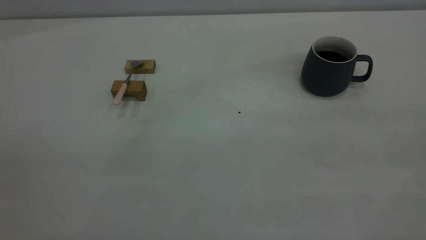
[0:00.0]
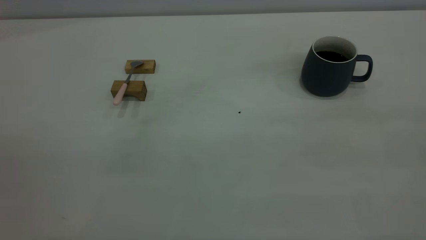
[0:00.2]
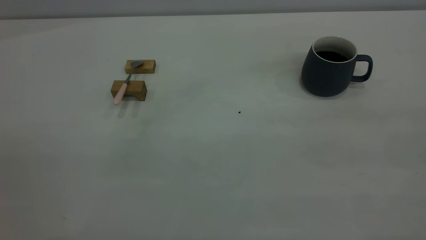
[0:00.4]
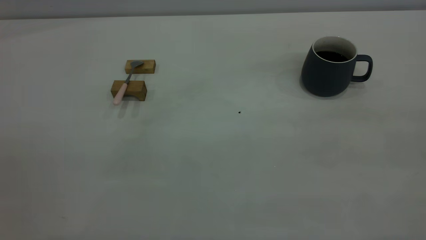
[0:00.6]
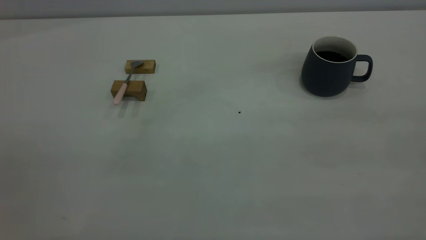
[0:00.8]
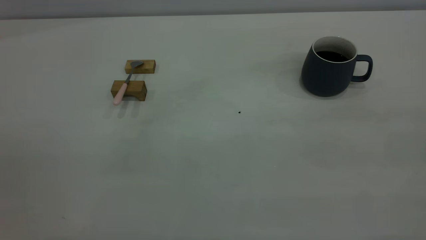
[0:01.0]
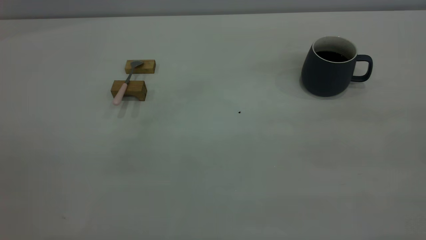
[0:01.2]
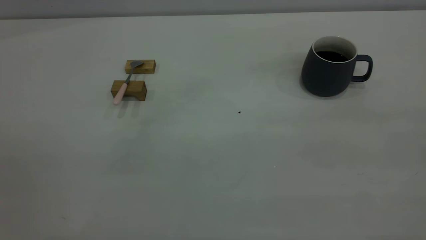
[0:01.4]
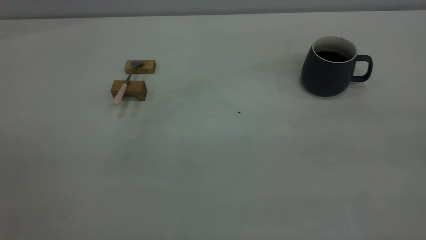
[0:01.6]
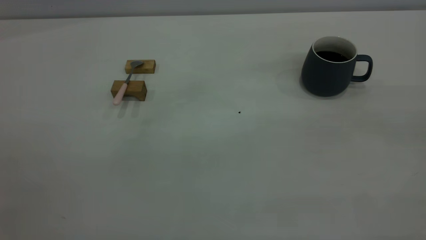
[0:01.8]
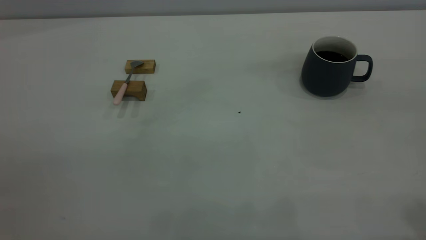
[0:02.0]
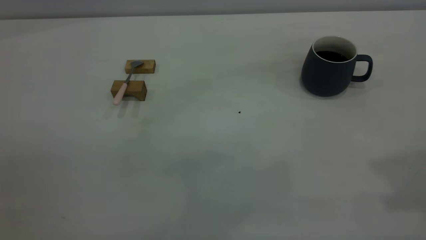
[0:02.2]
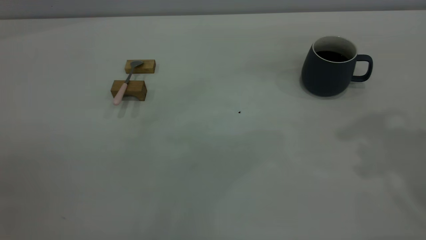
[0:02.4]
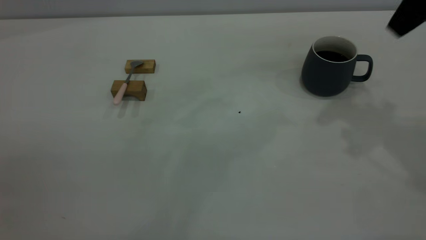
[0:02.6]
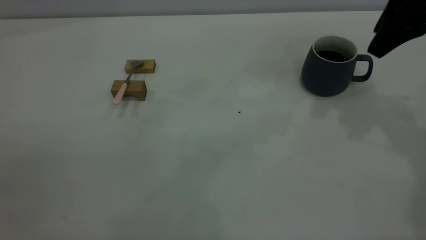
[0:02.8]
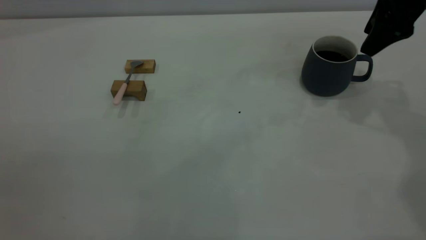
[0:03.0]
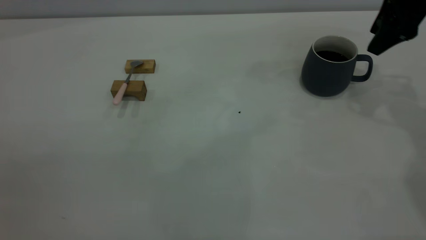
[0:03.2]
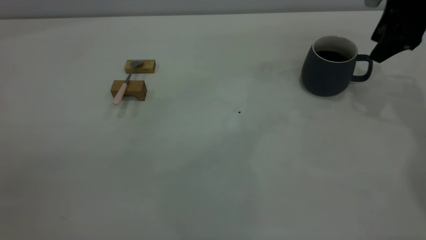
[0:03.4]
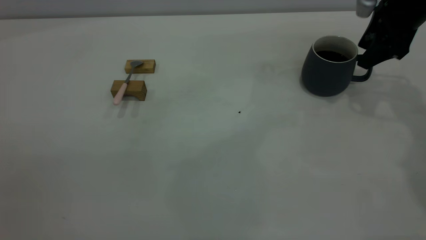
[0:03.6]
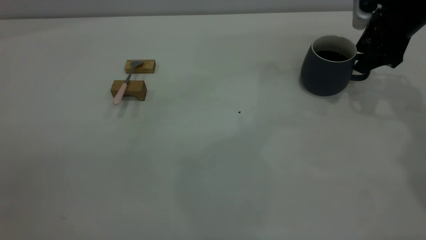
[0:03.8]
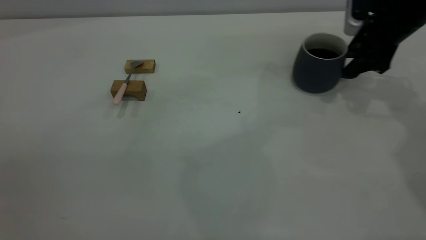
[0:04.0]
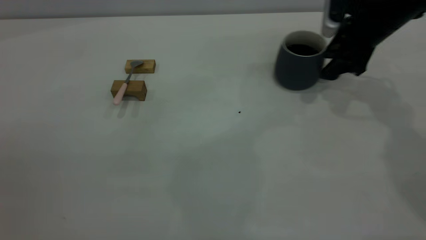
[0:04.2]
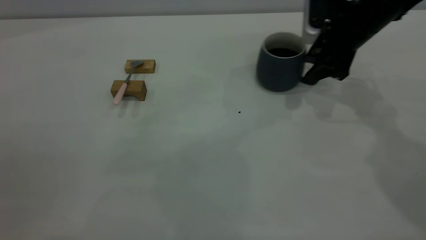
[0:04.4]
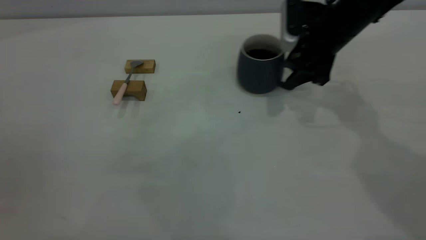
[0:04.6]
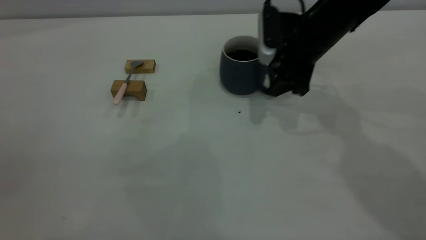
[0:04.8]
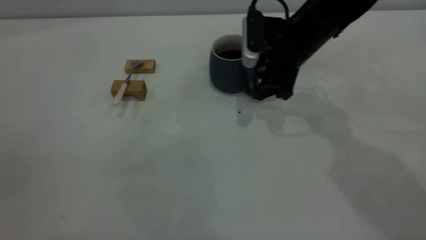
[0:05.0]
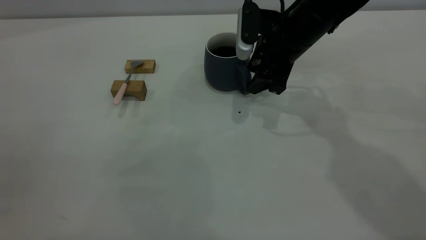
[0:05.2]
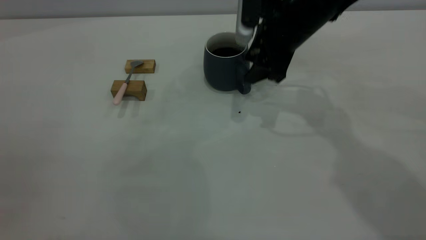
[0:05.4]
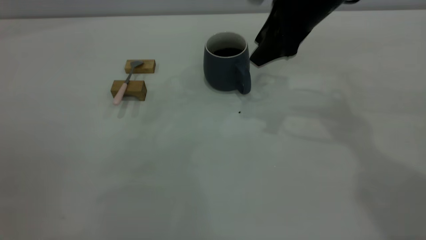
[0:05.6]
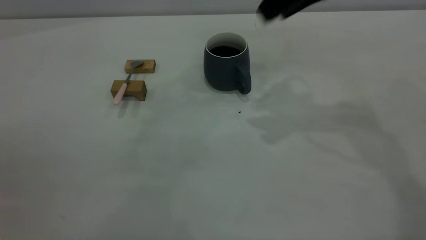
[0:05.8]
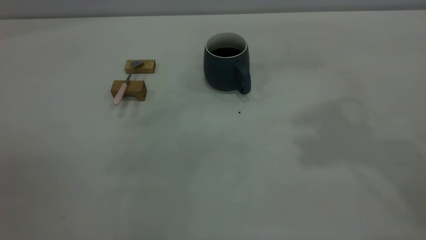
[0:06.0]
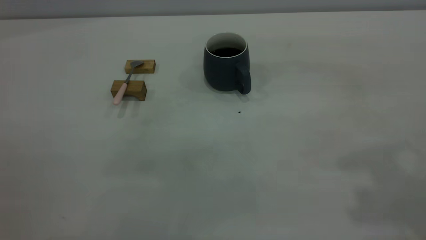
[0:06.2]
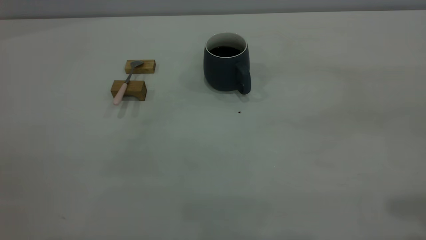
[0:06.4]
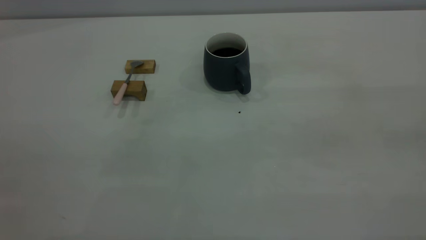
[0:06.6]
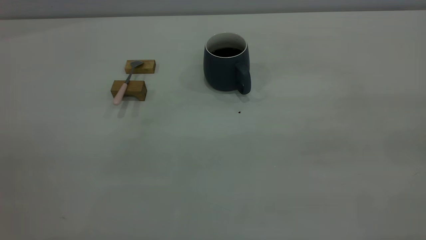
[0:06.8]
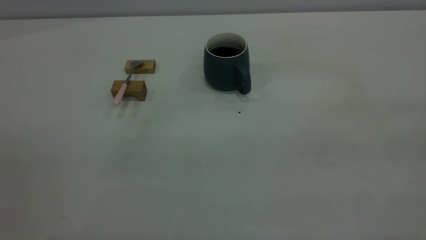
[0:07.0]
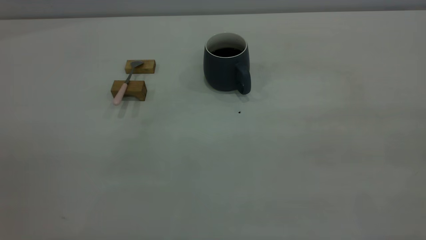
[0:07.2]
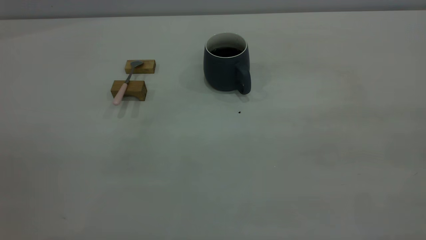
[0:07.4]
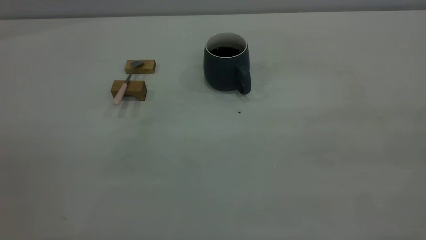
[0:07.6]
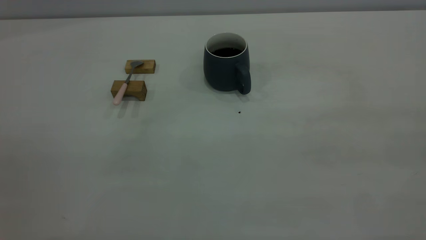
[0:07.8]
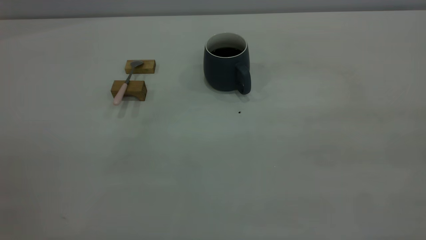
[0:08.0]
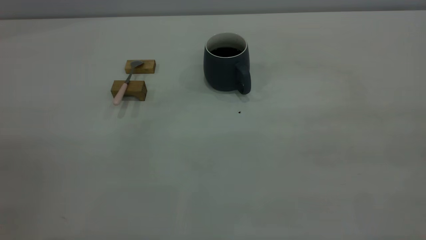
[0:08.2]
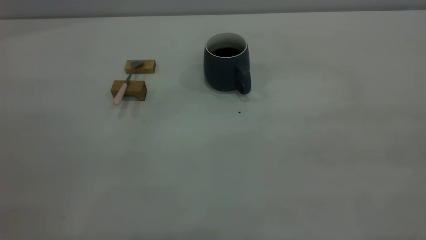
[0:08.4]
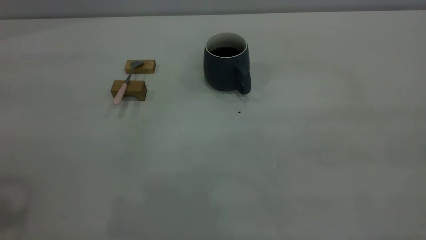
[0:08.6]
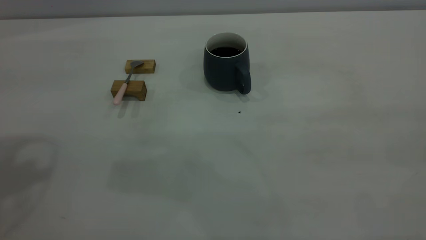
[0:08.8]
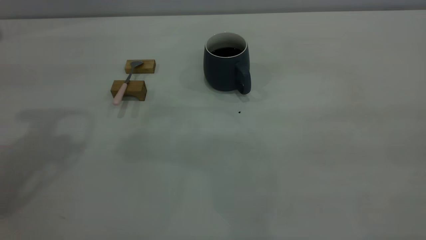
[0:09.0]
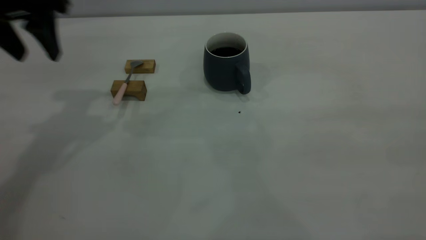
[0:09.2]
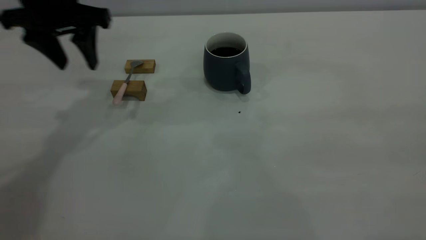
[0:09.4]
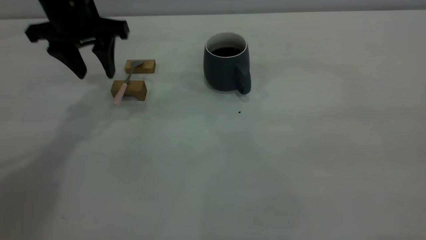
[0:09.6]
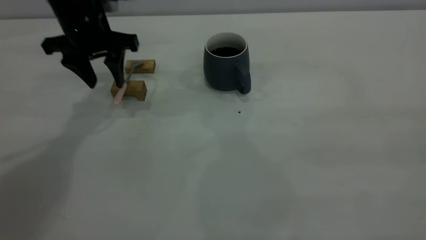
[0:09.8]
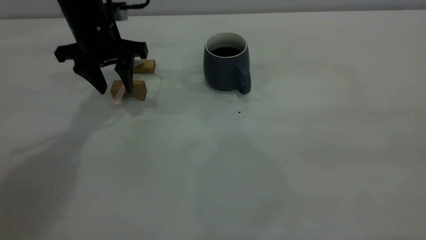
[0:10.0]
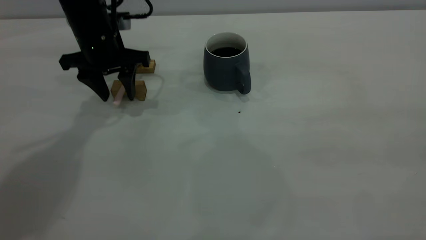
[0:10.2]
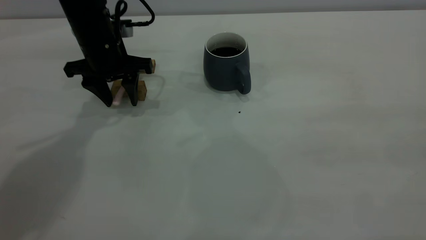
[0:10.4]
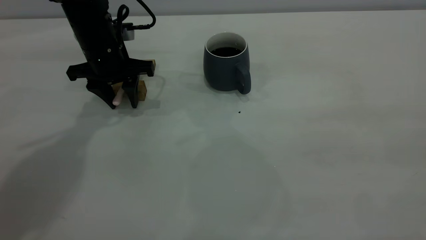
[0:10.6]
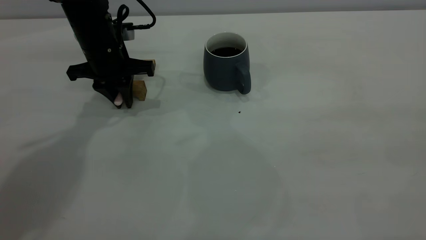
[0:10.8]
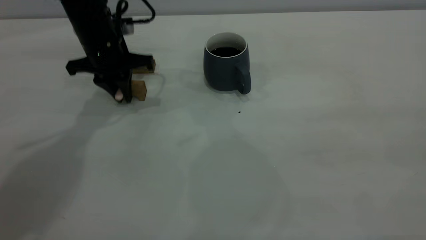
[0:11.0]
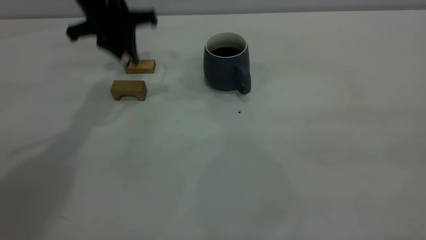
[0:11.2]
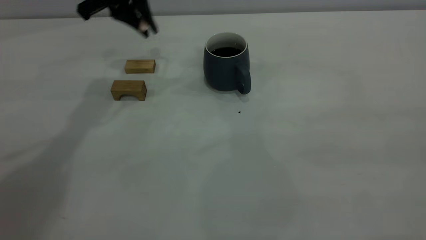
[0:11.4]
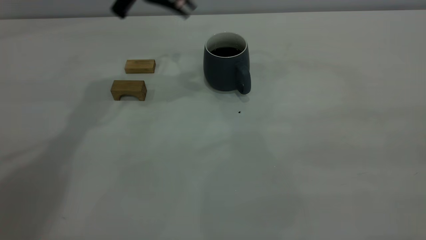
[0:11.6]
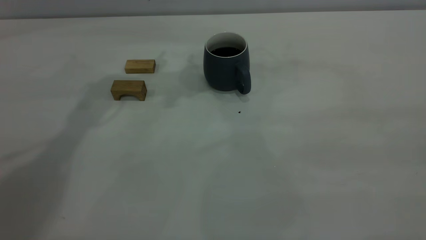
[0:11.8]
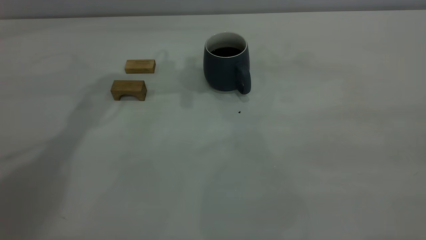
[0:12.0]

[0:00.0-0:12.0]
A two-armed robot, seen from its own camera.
Step, 0:00.0 to 0:05.6: Move the cup with coffee to the center of view.
Step, 0:05.8 to 0:11.0: Pick up the spoon.
0:00.0 to 0:01.6: Both grippers stay about where they are.
0:01.6 to 0:03.0: The right gripper is displaced forward by about 40 cm.
0:03.0 to 0:04.4: The right gripper moves downward and to the left, about 10 cm.
0:04.4 to 0:06.0: The right gripper travels upward and backward by roughly 30 cm.
0:09.0 to 0:10.4: The left gripper goes approximately 25 cm downward, forward and to the right.
0:10.4 to 0:12.0: The left gripper heads upward and to the right, covering approximately 20 cm, and closes up.

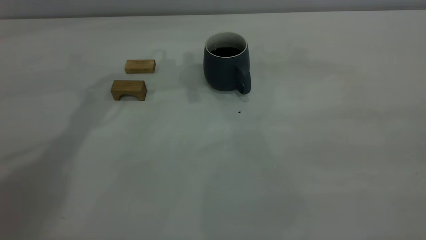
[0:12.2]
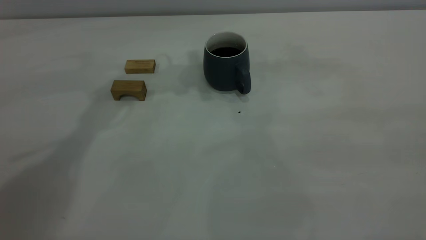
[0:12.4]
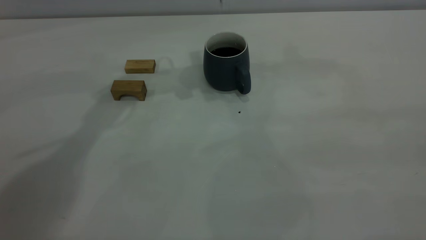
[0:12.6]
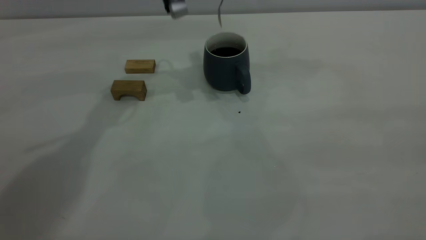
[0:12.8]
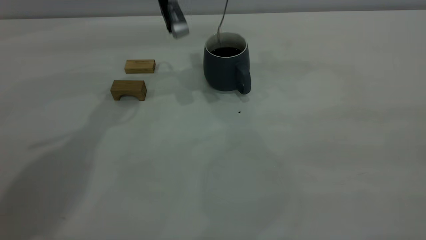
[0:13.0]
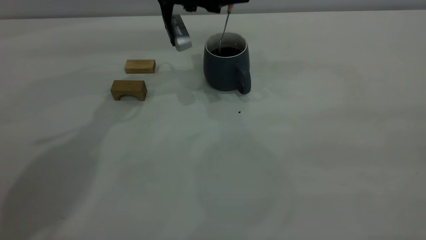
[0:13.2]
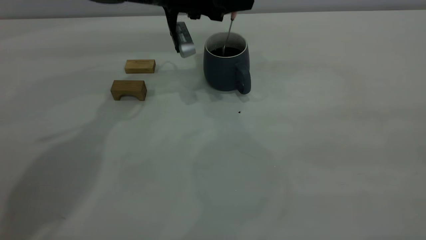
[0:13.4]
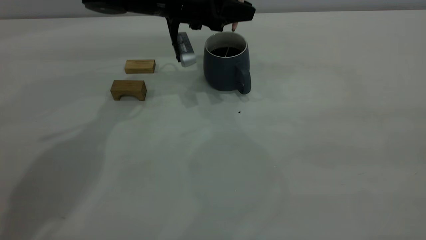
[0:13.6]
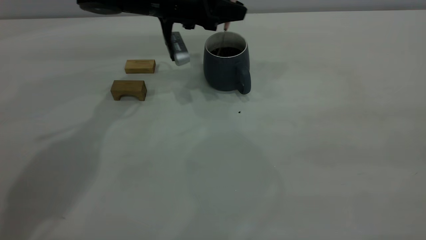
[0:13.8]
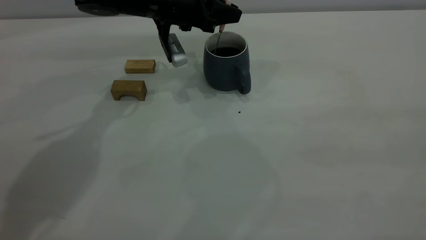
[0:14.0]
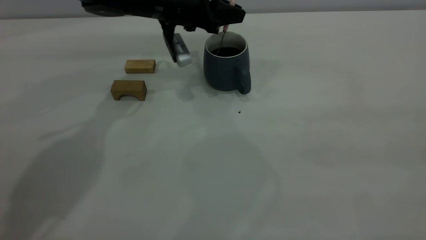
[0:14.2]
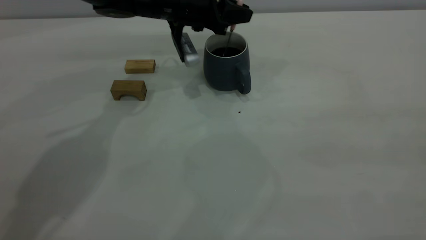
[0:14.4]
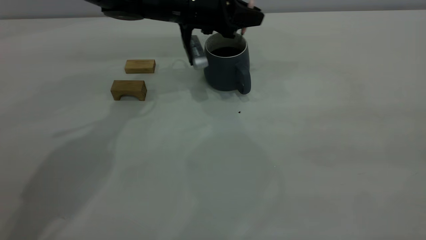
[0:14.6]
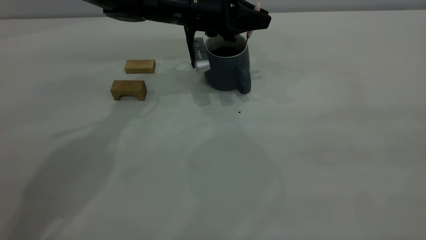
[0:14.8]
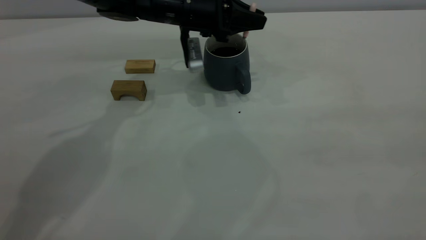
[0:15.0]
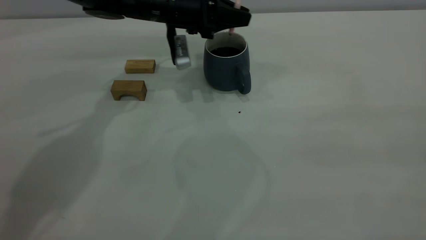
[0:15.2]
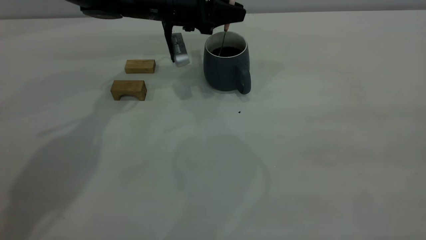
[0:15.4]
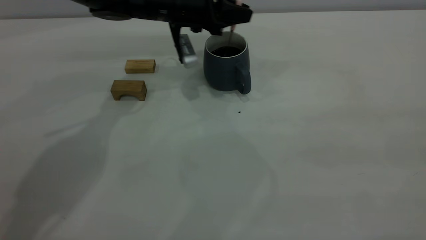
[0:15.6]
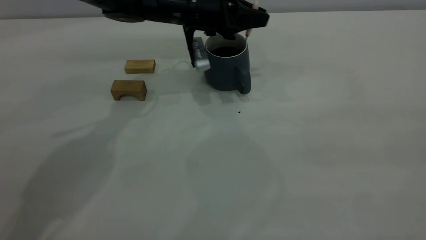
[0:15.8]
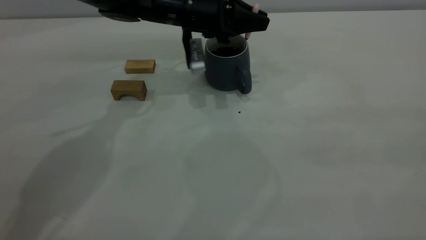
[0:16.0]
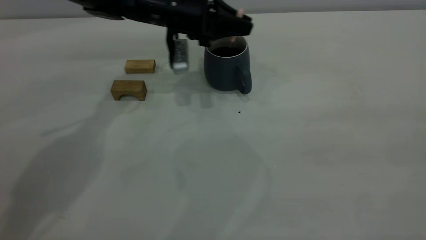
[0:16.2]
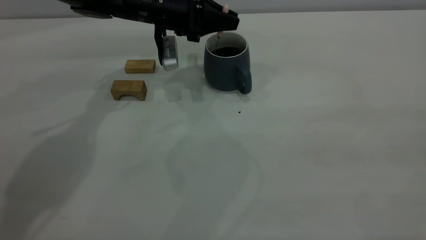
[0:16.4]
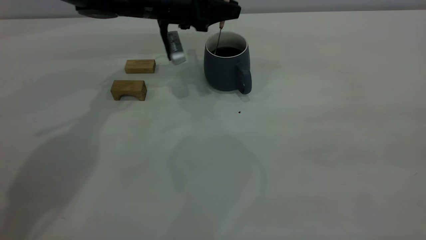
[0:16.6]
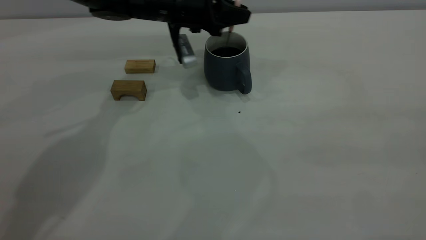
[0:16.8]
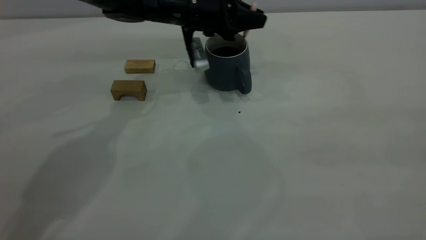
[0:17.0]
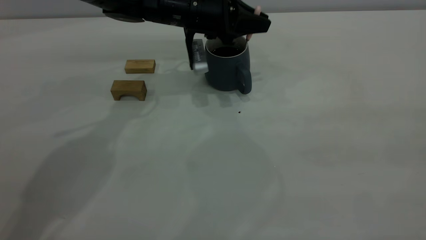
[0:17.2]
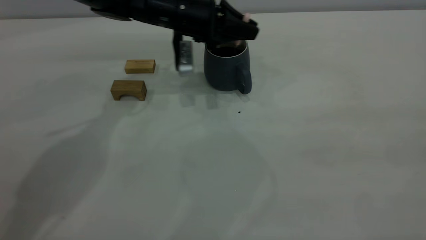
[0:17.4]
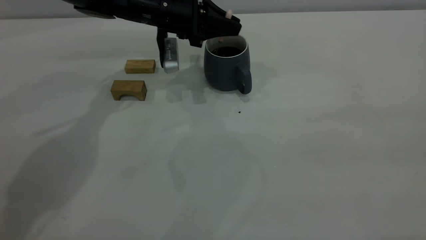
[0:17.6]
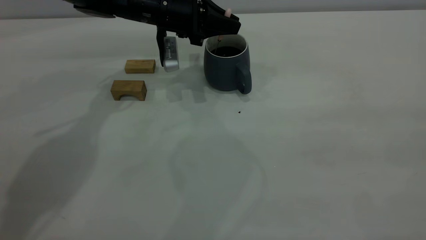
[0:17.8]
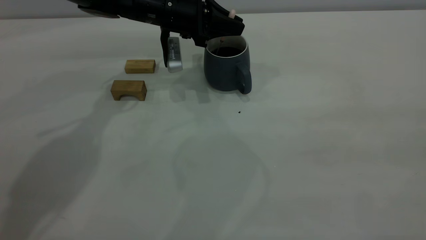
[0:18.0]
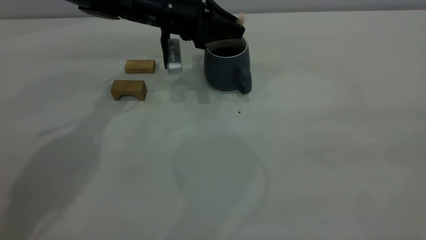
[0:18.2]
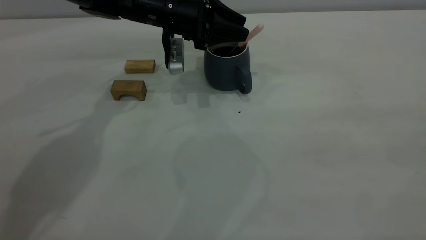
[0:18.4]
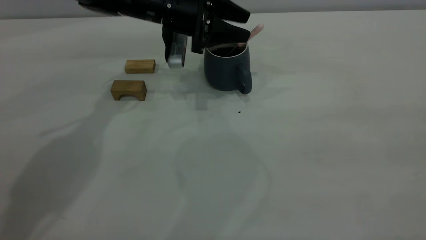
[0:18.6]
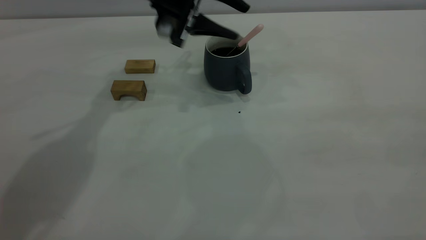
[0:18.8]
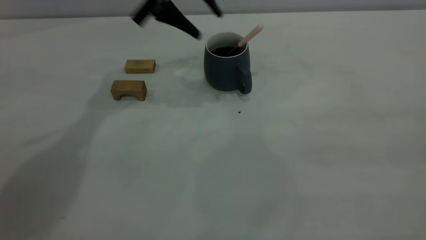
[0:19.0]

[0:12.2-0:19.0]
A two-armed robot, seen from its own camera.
Step, 0:12.2 to 0:19.0: Stir the coffee in the cup.
0:12.2 to 0:13.6: The left gripper travels downward by approximately 15 cm.
0:13.6 to 0:17.6: The grippers move only a little.
0:17.6 to 0:19.0: The left gripper goes roughly 10 cm upward, and opens up.
